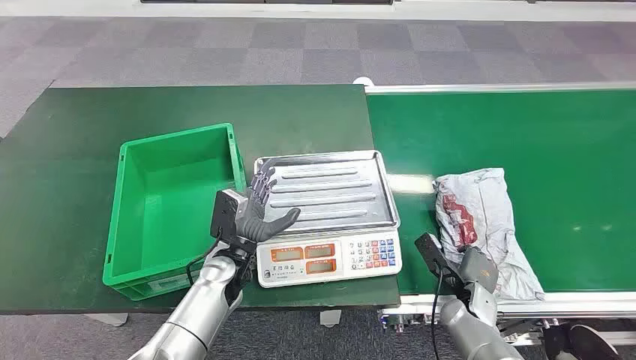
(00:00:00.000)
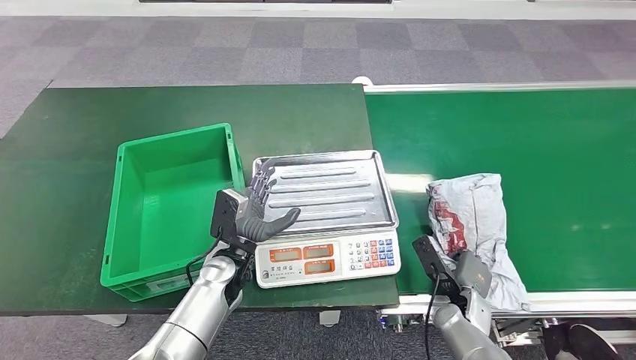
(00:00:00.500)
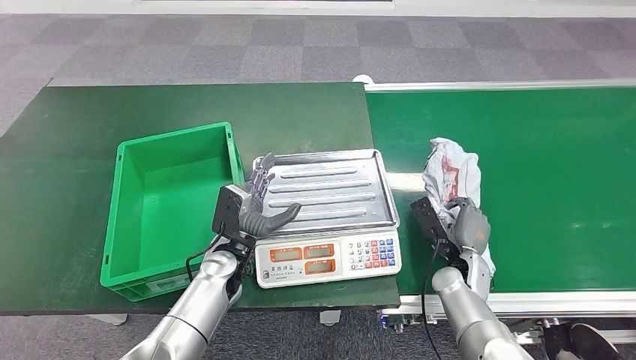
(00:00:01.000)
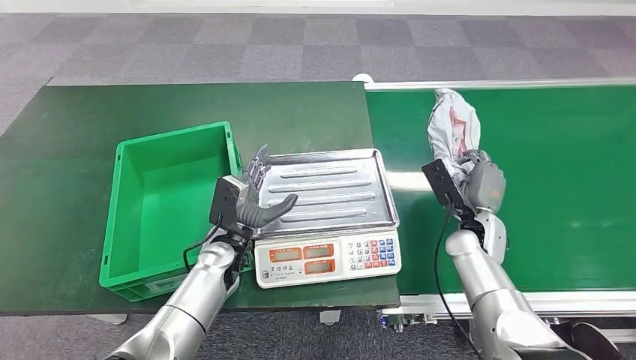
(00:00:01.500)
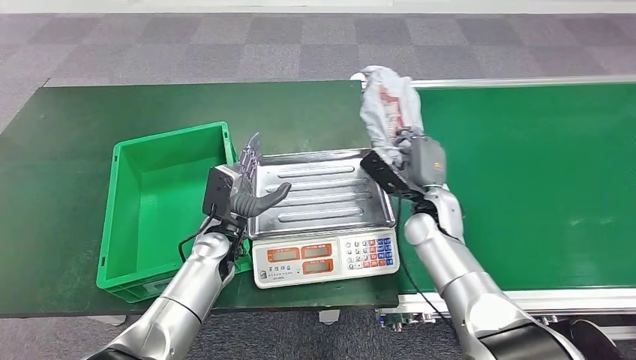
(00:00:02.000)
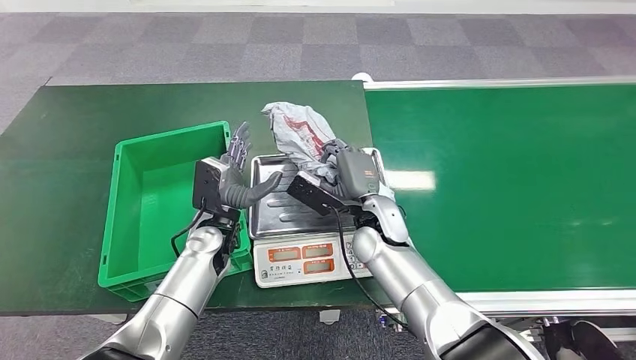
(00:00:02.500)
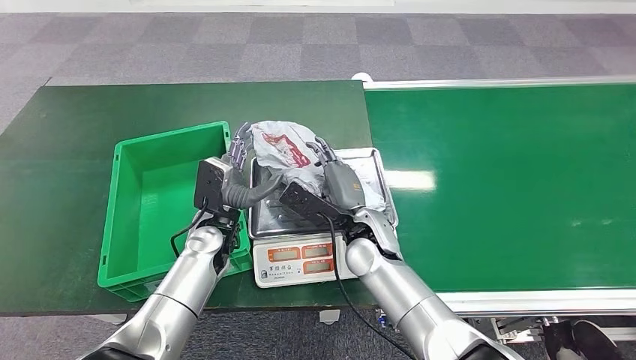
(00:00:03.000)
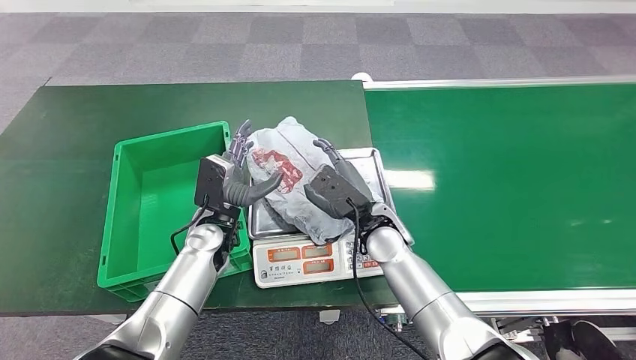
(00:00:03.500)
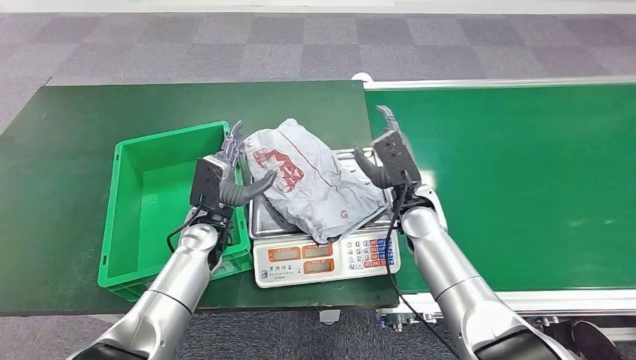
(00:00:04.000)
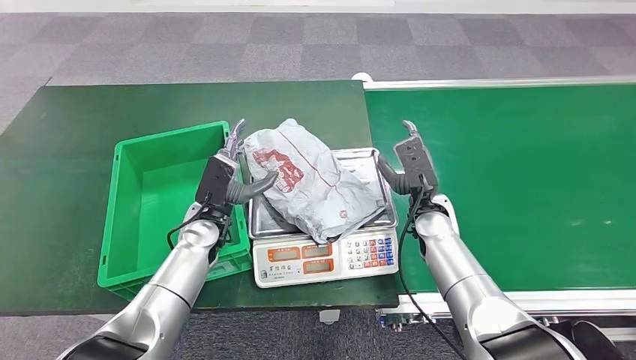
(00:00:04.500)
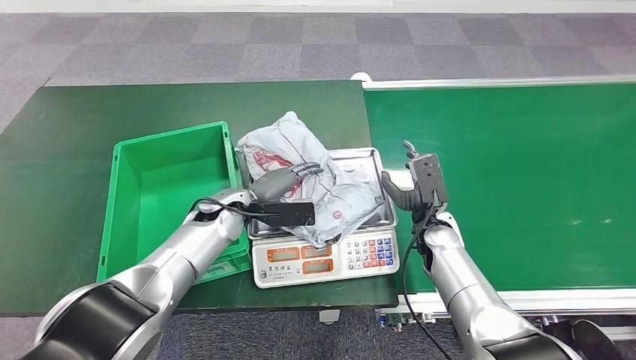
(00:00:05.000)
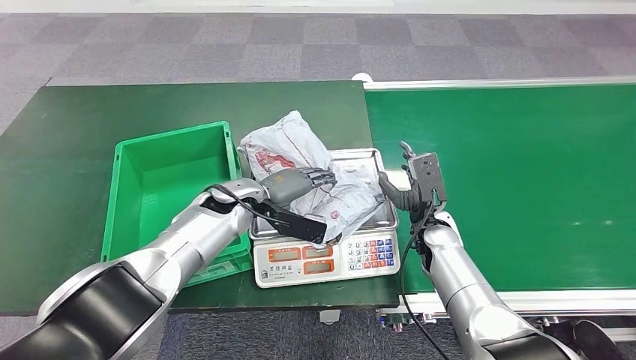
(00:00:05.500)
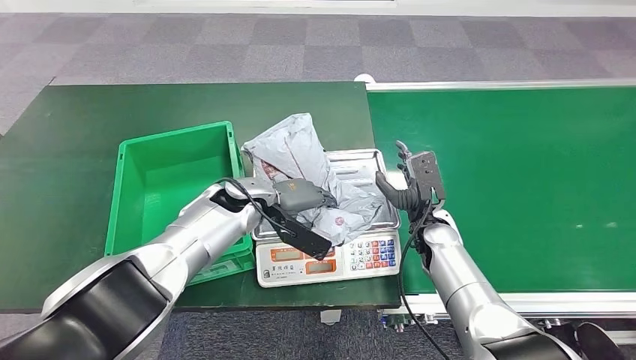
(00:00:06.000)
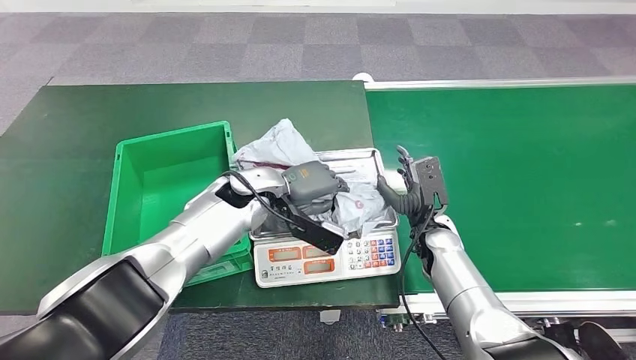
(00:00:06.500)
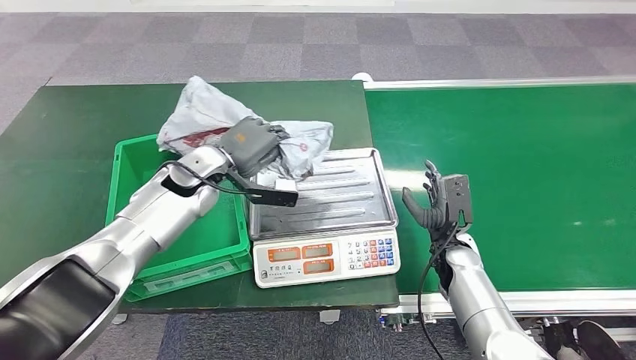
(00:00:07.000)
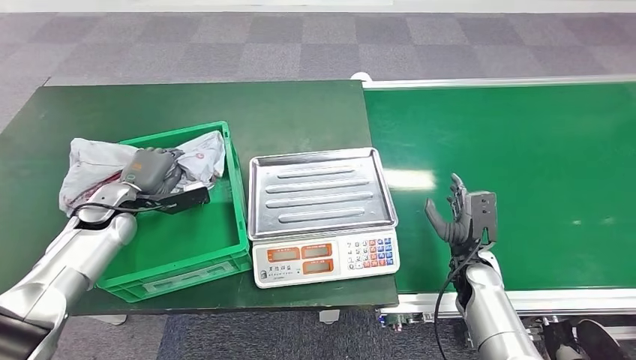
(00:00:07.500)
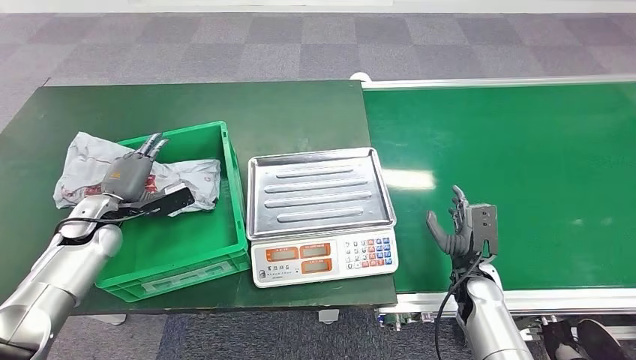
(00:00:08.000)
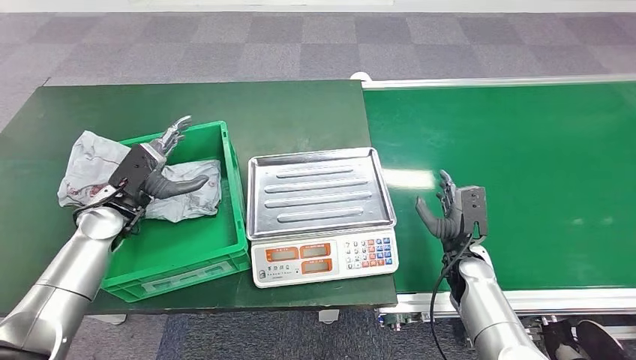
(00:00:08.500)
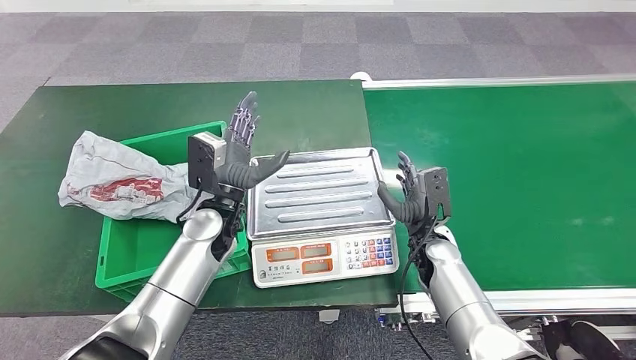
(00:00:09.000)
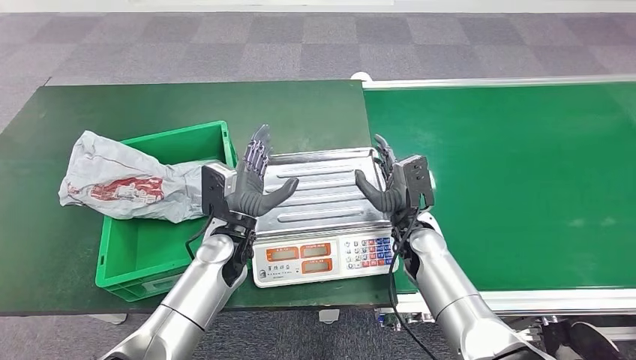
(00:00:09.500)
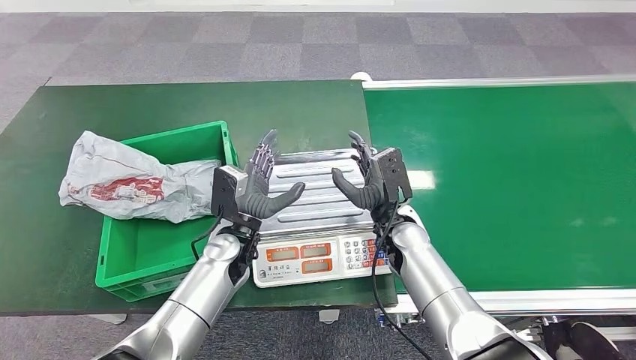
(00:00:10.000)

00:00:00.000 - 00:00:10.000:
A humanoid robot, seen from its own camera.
Step, 00:00:00.000 - 00:00:01.500: Pick up the package from the conveyor belt.
Step, 00:00:02.000 - 00:00:03.500: Place the package onto the inbound machine.
Step, 00:00:04.000 - 00:00:07.000: Pick up the package from the inbound machine.
Step, 00:00:07.500 - 00:00:10.000: Place the package into the parcel locker.
00:00:02.000 - 00:00:04.000: The right hand travels to the left and back again, some 10 cm each way.

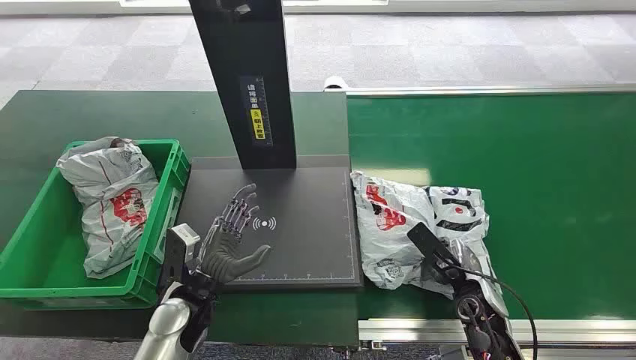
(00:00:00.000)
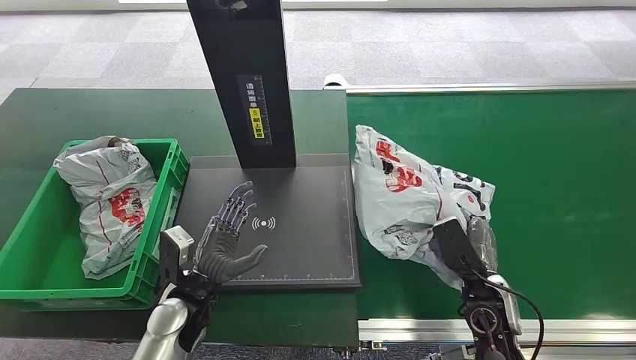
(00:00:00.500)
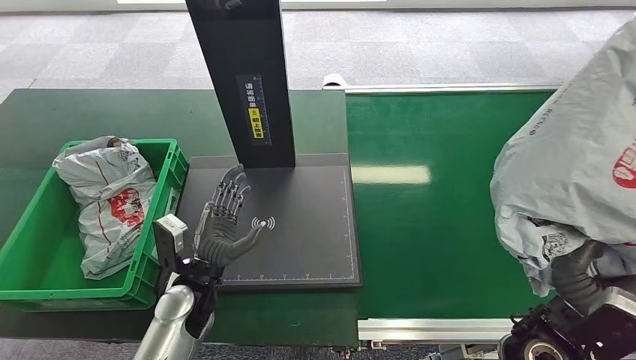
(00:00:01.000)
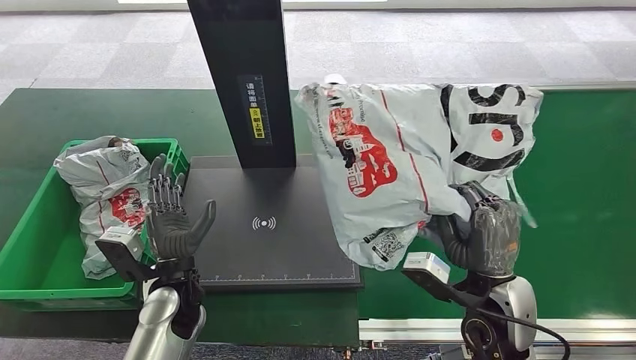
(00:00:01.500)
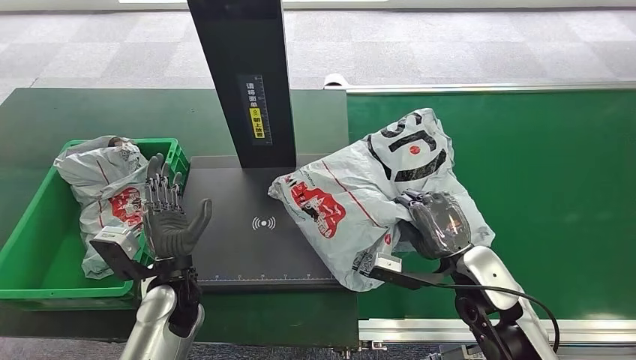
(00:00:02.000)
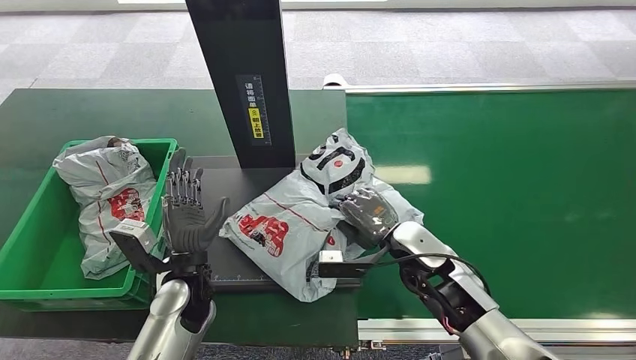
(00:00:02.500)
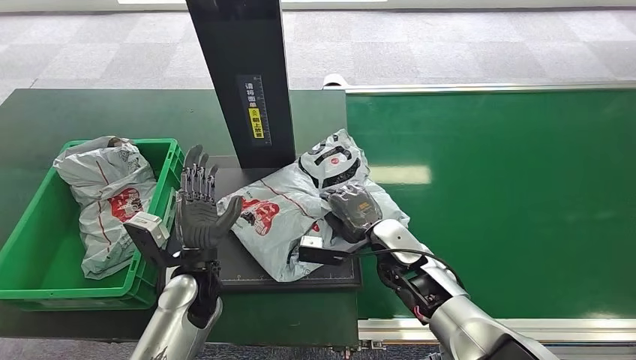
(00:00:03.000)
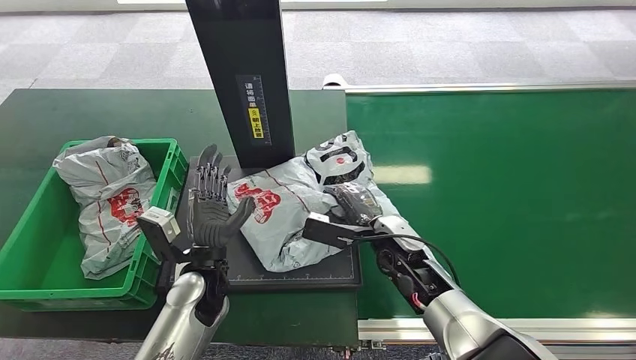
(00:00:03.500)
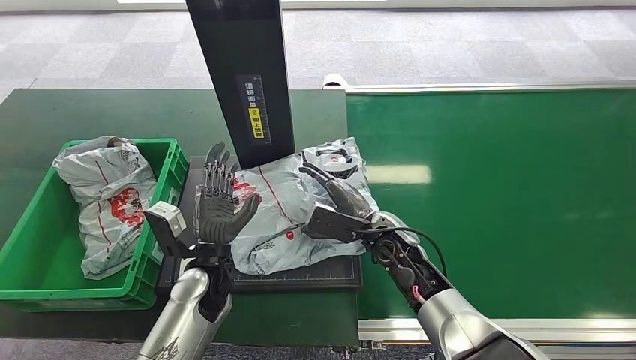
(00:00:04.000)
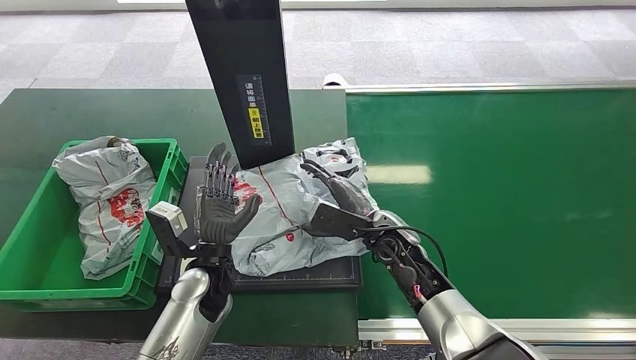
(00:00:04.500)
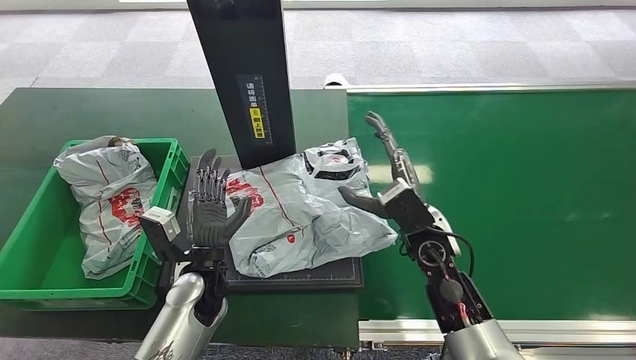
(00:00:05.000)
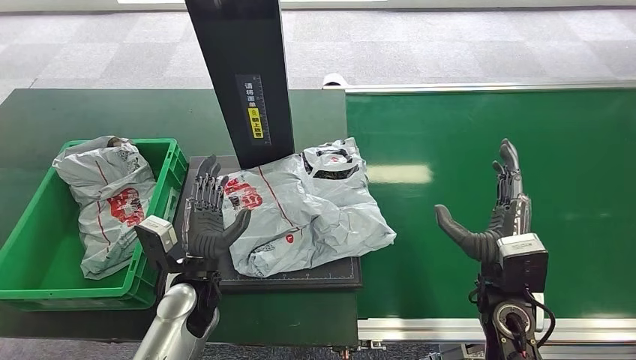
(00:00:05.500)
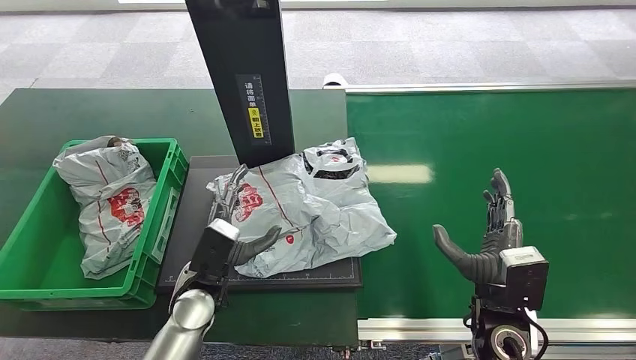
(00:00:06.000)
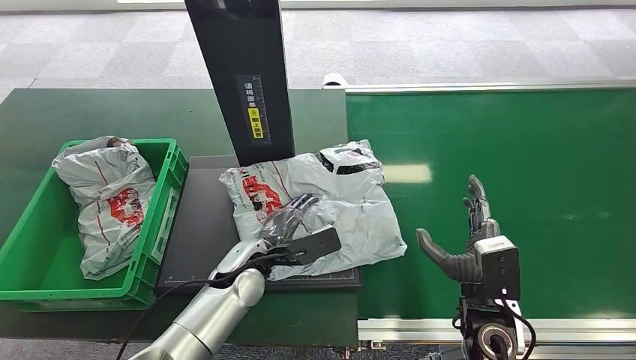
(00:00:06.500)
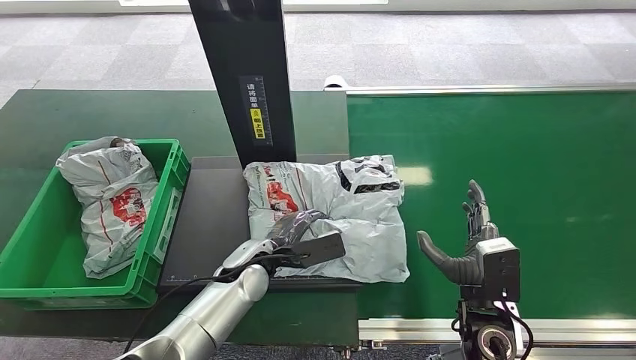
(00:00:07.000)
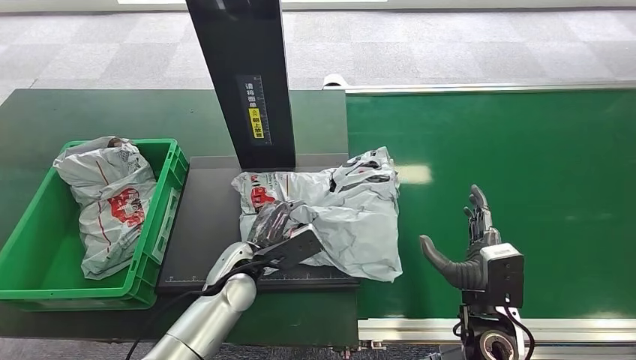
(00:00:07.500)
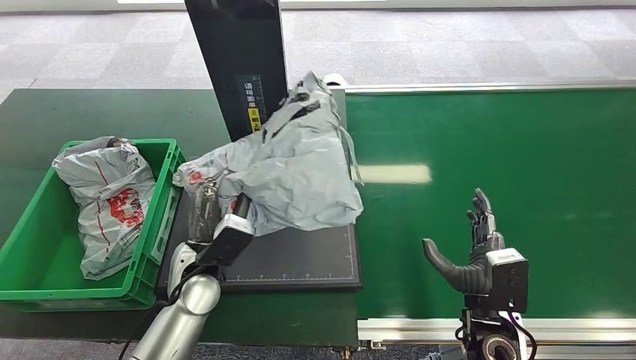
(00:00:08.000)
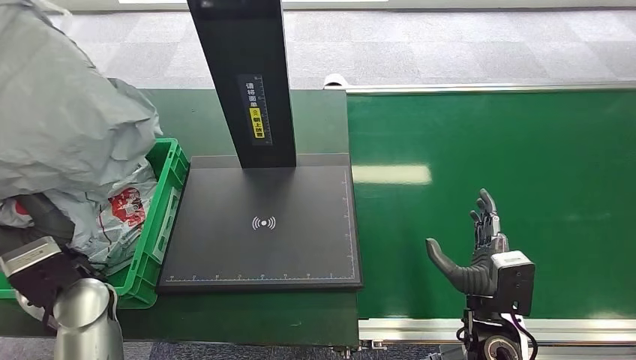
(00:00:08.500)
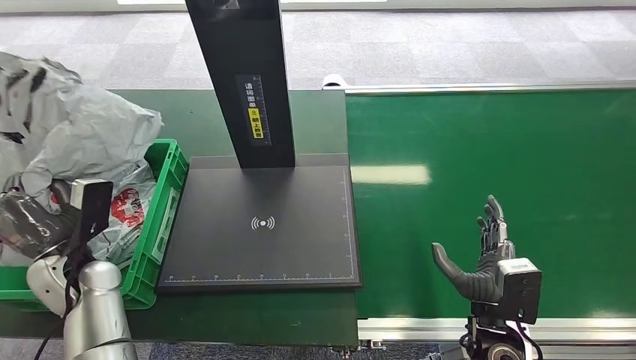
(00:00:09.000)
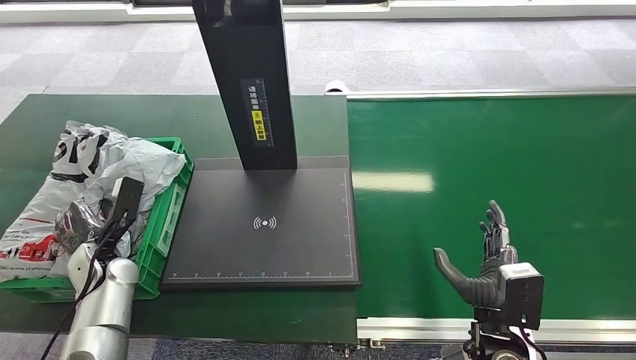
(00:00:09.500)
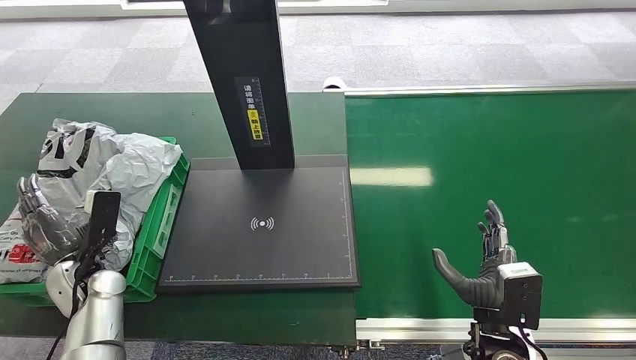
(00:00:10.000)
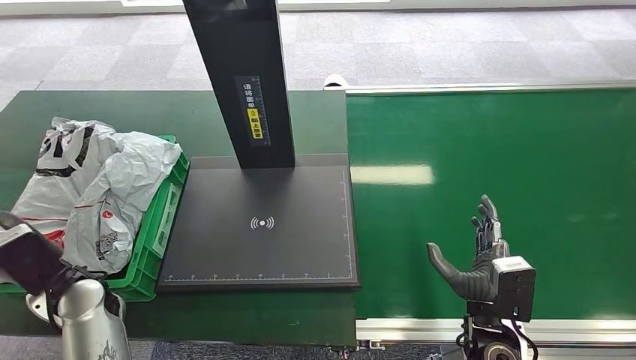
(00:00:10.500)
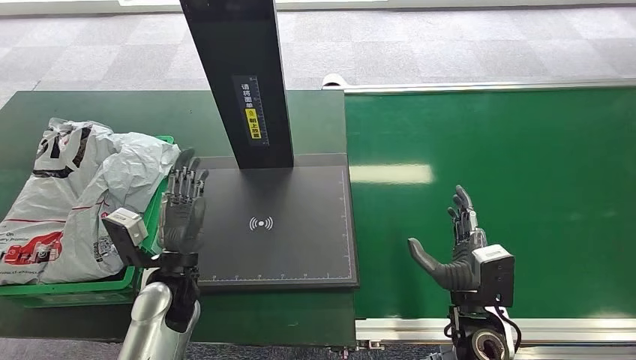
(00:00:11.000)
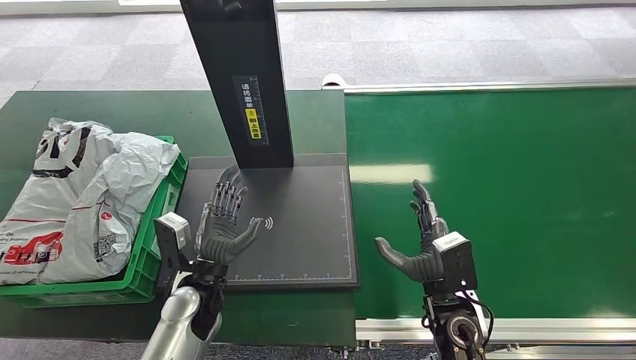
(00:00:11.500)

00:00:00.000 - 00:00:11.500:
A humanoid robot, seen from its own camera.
Step, 00:00:00.000 - 00:00:01.500: Pick up the package from the conveyor belt.
Step, 00:00:02.500 - 00:00:05.000: Place the package onto the inbound machine.
Step, 00:00:05.500 - 00:00:08.000: Pick up the package from the inbound machine.
Step, 00:00:08.500 - 00:00:11.500: Place the package into the parcel locker.
00:00:04.000 - 00:00:06.000: The right hand is displaced backward and to the right by about 15 cm.
00:00:06.000 - 00:00:07.500: The left hand shifts by about 5 cm.
